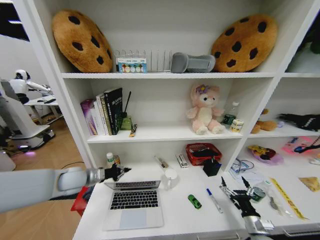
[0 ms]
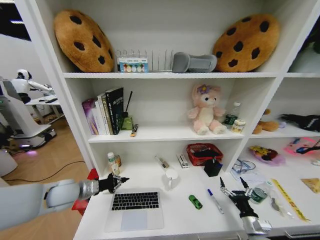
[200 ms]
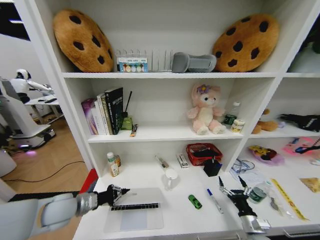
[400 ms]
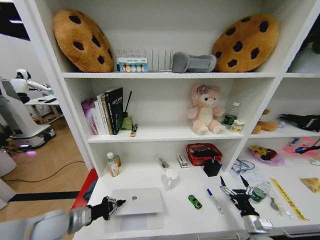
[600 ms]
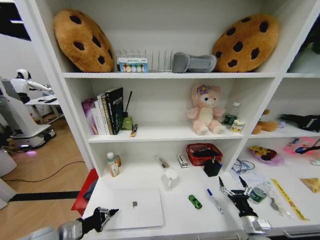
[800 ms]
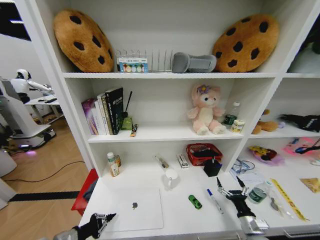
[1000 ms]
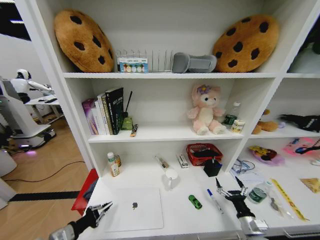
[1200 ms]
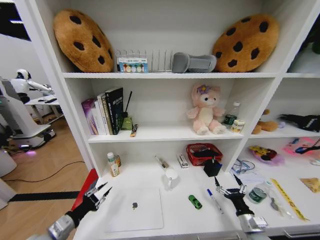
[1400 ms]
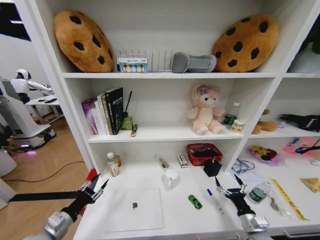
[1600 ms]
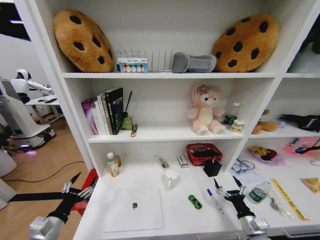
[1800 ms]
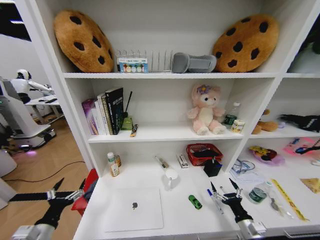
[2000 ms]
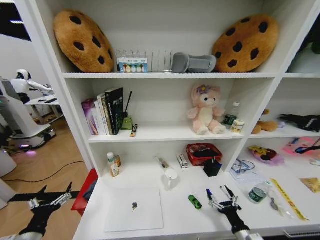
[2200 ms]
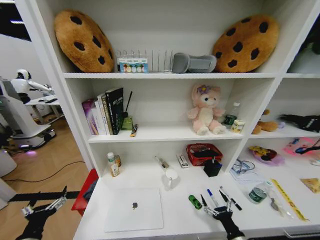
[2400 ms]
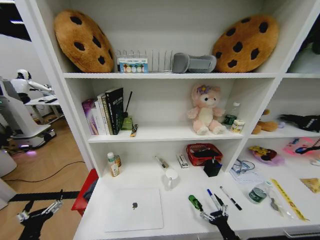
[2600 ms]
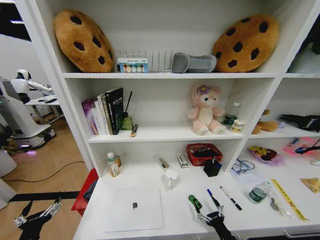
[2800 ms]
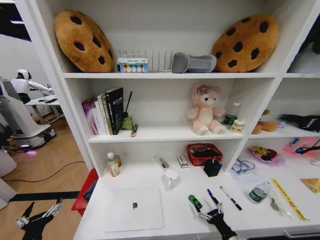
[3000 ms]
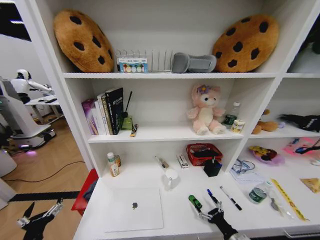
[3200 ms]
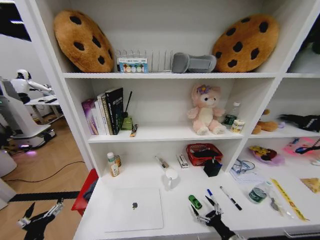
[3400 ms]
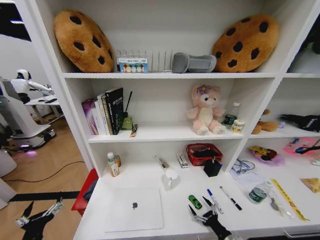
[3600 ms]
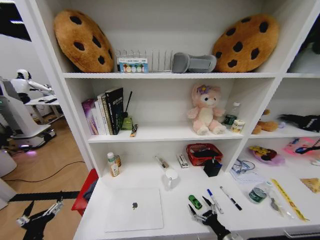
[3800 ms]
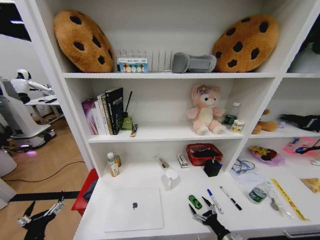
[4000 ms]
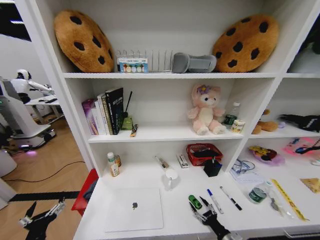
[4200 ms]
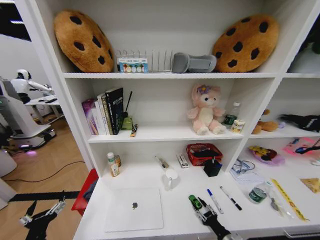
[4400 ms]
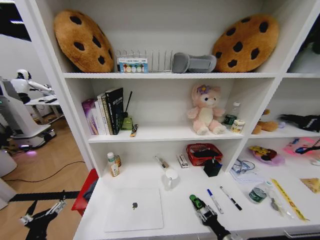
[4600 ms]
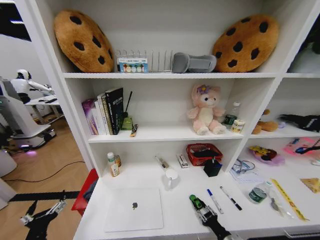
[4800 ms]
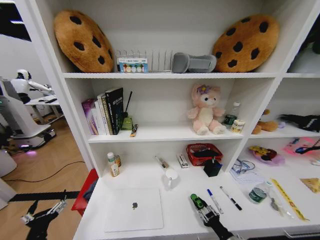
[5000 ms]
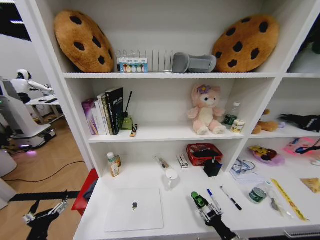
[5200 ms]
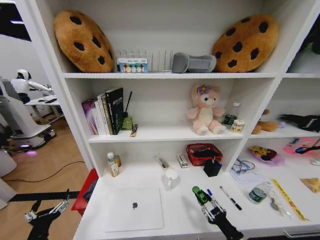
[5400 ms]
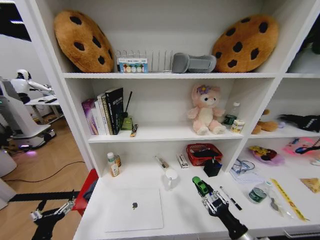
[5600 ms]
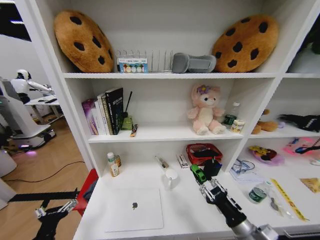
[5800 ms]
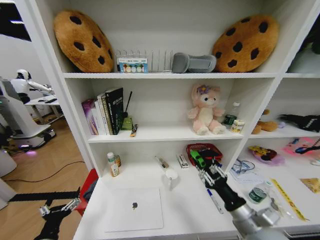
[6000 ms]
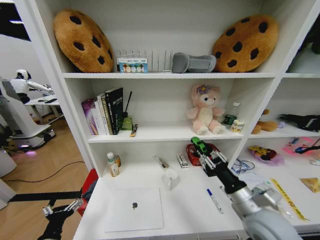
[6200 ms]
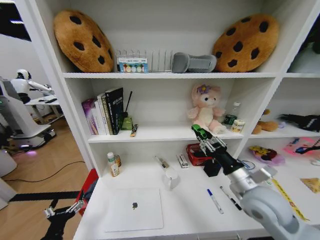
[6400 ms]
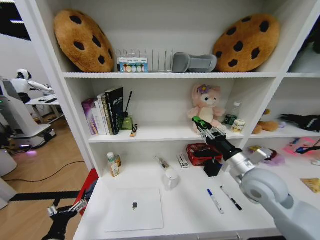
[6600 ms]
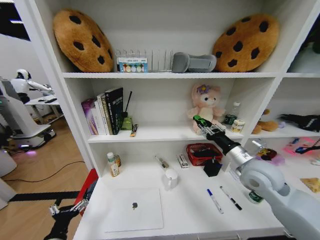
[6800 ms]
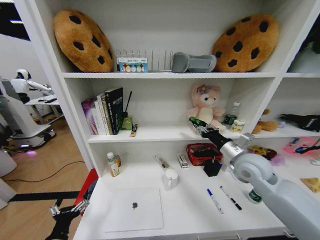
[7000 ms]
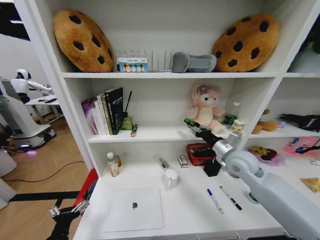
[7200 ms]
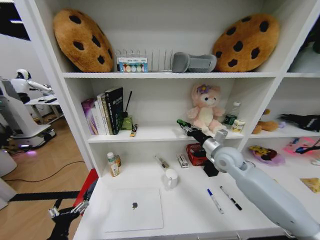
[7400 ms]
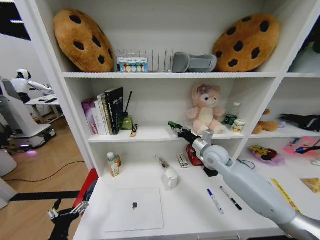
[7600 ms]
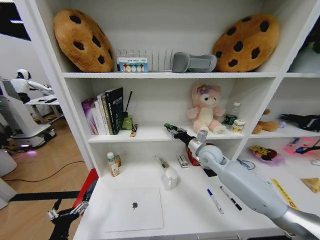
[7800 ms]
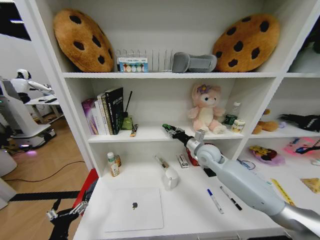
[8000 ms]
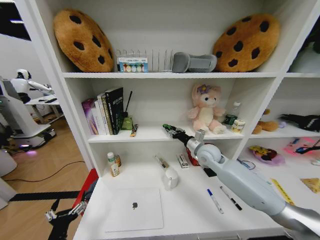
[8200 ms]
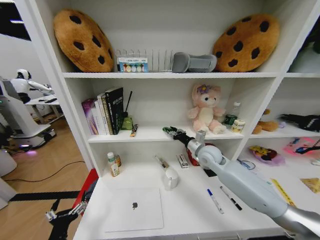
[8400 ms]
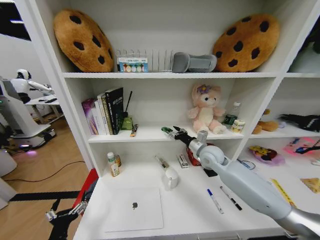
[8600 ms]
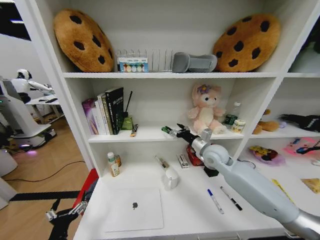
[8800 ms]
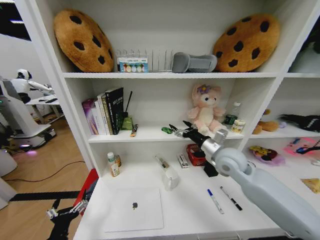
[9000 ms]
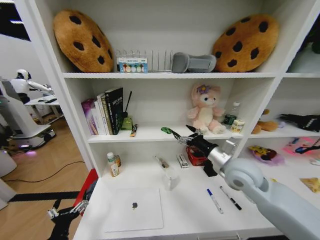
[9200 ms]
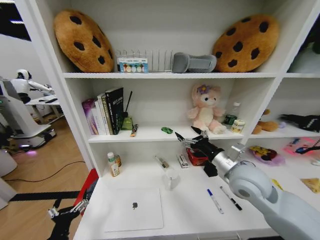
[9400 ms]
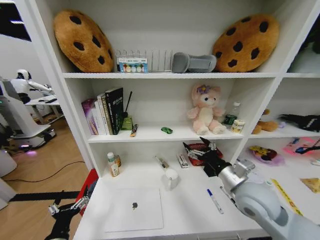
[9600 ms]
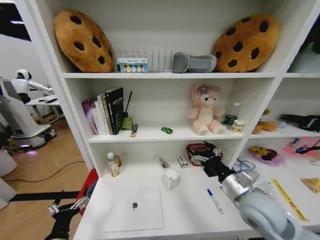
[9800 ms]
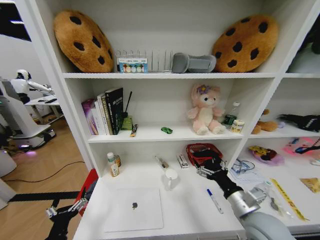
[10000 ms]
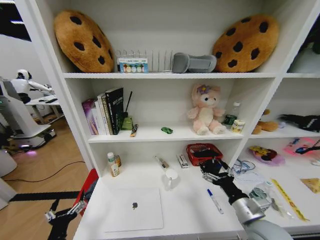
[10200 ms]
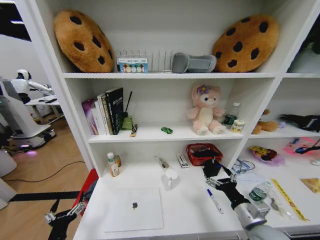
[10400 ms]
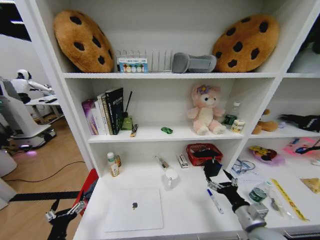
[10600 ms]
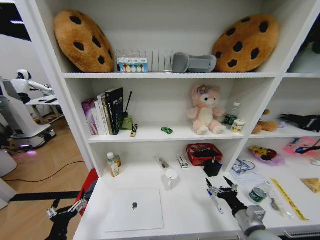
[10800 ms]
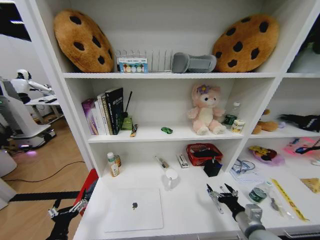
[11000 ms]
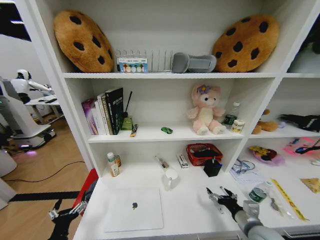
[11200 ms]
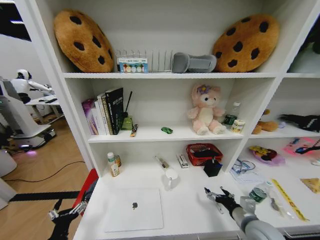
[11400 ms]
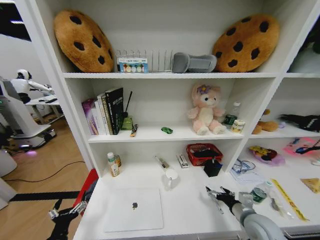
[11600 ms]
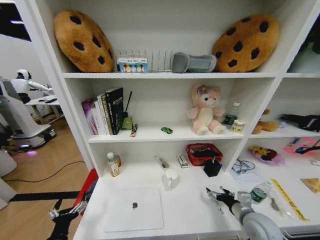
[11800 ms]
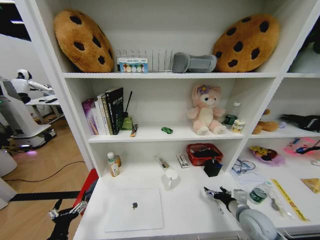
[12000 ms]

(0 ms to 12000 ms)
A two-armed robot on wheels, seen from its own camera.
Task of the whole recording: Organize the objects on the table.
0 ms - 1600 ms: The left gripper heads backward, covering about 20 cm, and opens its fingers.
1600 ms - 3000 ms: The left gripper goes approximately 10 cm backward, and opens. The right gripper heads backward and to the left, covering approximately 10 cm.
3000 ms - 4400 ms: The right gripper closes its fingers.
4400 ms - 6000 ms: The right gripper moves upward, some 25 cm.
6000 ms - 7600 ms: The right gripper goes some 25 cm forward.
7600 ms - 9000 ms: The right gripper opens up.
9000 ms - 10400 ms: The right gripper moves backward and downward, roughly 25 cm.
10400 ms - 12000 ms: The right gripper heads downward and forward, covering approximately 10 cm.

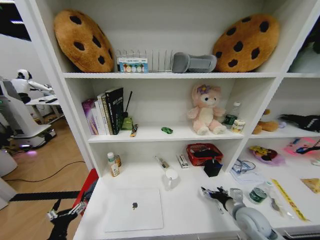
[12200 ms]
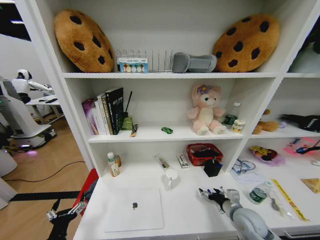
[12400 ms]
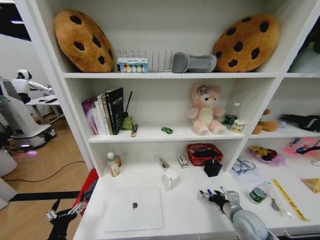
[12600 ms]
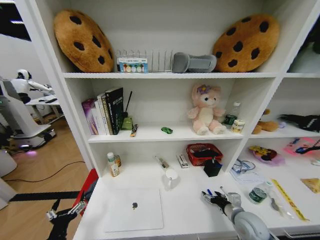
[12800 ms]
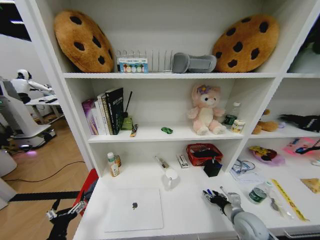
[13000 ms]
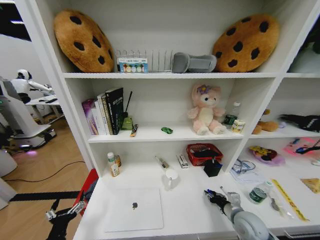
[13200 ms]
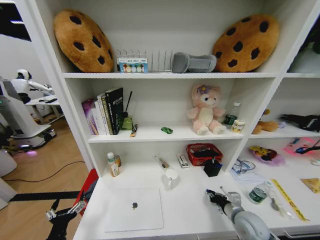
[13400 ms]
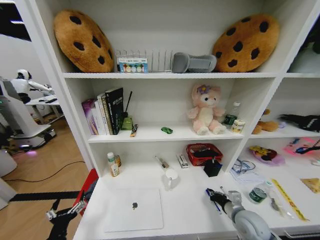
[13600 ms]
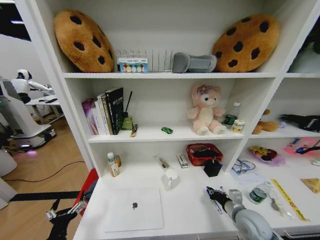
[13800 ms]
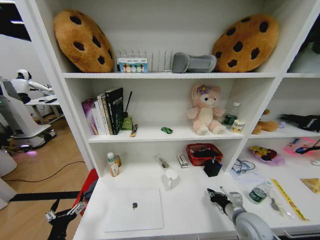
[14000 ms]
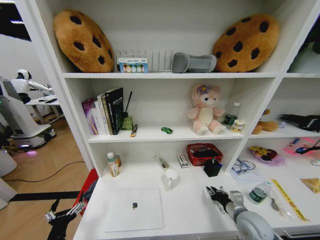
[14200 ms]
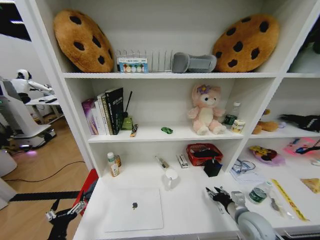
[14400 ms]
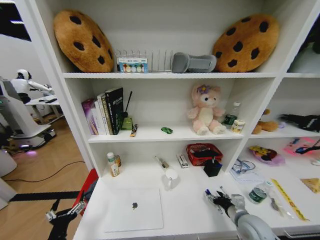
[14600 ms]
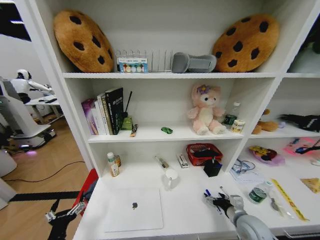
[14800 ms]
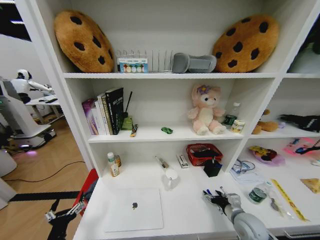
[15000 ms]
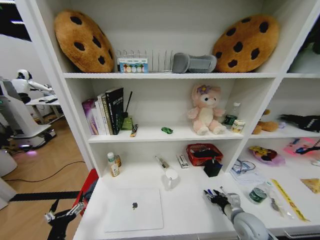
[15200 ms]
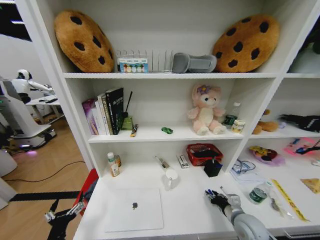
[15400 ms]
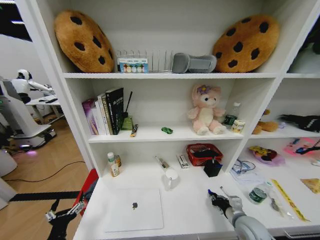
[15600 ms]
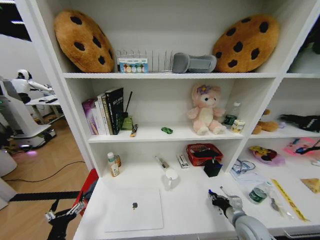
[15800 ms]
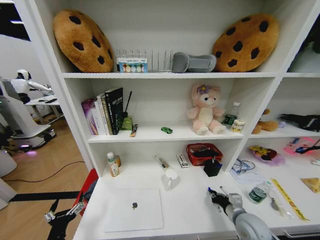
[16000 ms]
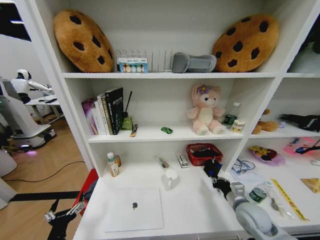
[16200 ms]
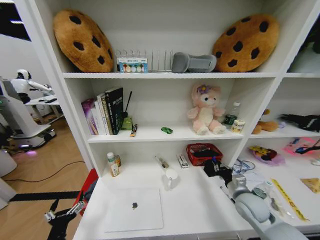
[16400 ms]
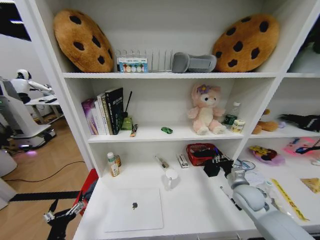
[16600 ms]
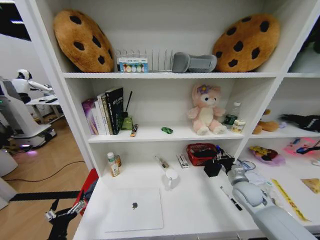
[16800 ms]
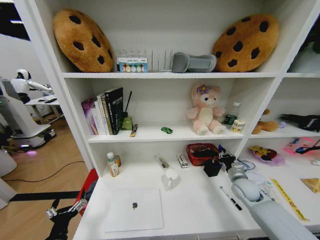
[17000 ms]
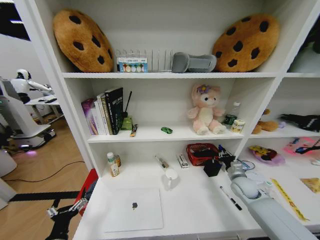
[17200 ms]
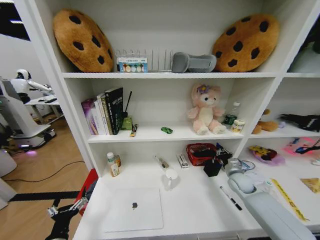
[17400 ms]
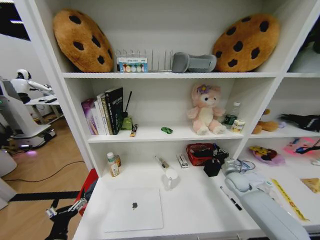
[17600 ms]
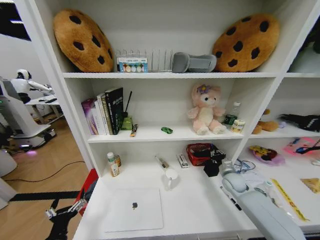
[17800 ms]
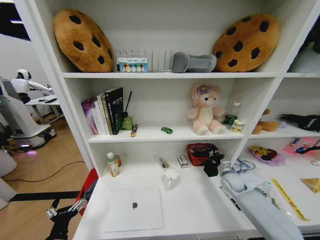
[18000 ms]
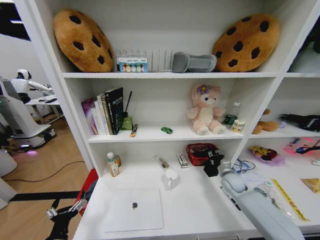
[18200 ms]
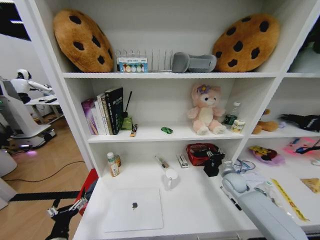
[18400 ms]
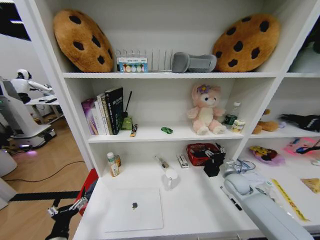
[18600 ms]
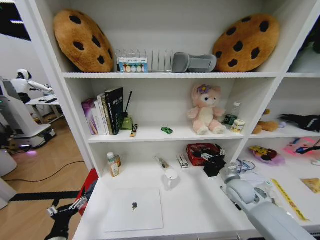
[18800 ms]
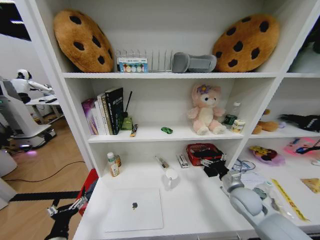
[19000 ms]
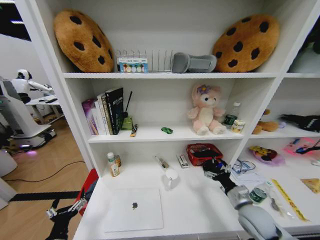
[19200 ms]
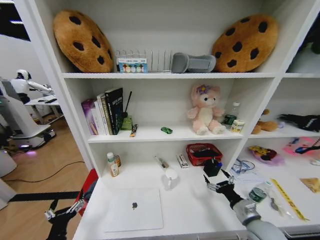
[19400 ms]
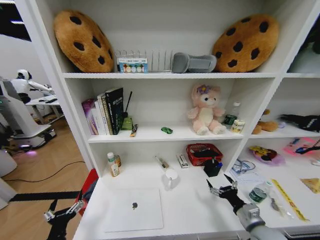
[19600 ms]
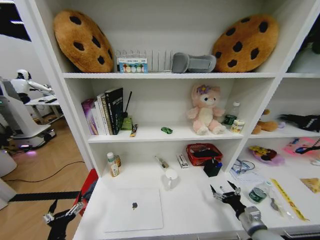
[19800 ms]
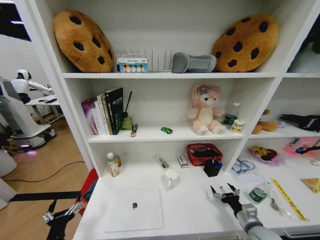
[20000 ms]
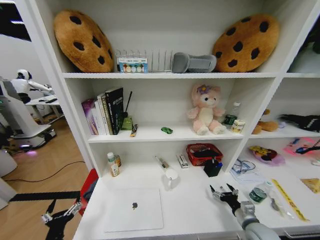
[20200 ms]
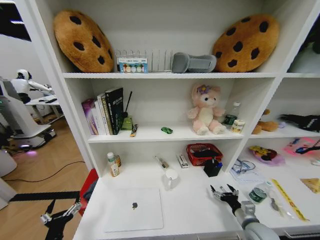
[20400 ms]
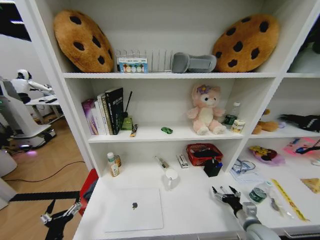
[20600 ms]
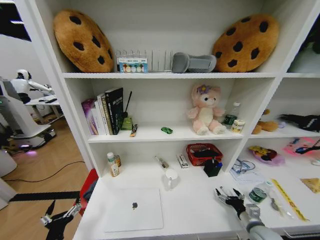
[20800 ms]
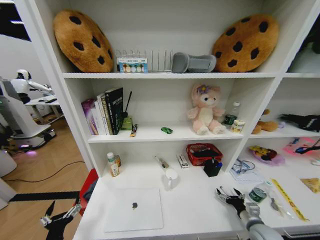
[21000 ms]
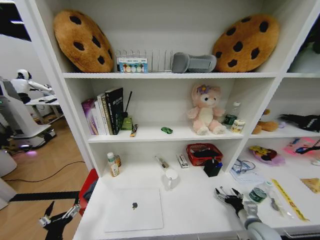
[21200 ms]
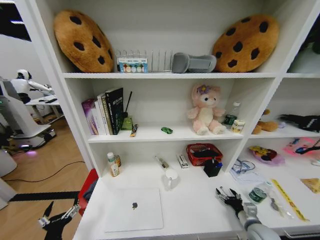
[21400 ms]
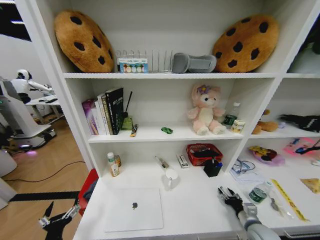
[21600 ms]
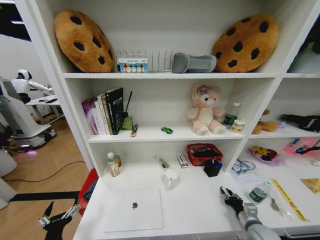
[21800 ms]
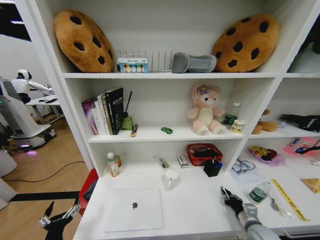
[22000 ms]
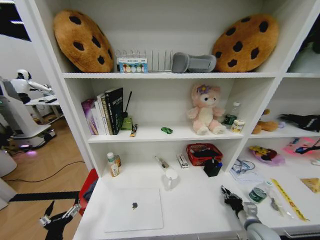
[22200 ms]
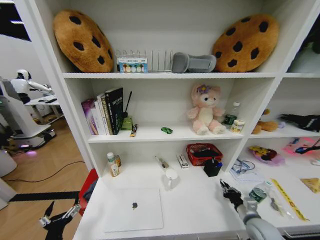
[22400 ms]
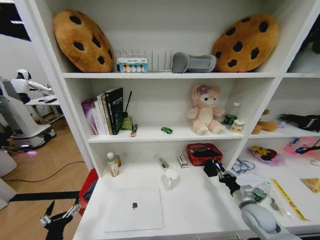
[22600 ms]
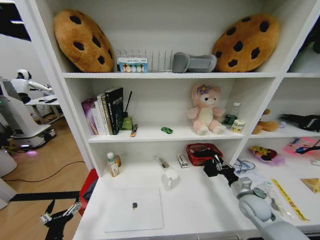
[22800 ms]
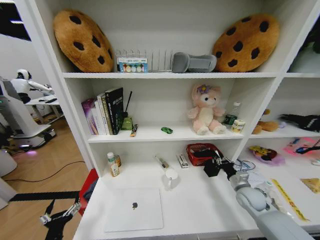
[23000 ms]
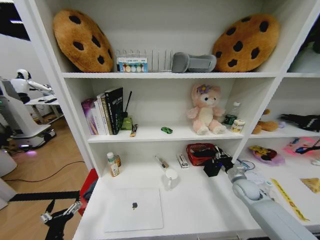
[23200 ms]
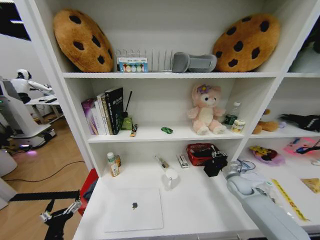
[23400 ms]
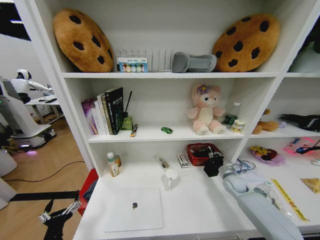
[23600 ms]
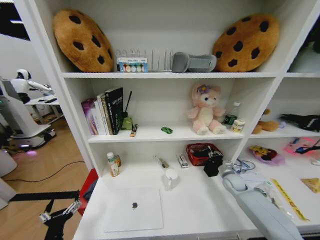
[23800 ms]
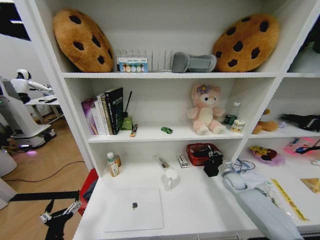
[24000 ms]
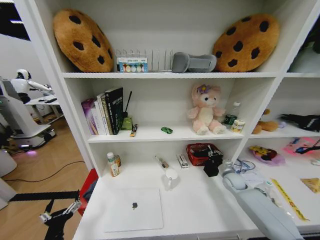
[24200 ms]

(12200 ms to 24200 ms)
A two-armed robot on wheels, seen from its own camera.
Task of the whole recording: Organize the objects on the table.
12200 ms - 13800 ms: The right gripper closes its fingers.
13800 ms - 15200 ms: The right gripper opens its fingers.
15200 ms - 16600 ms: The right gripper moves forward and upward, some 10 cm, and closes.
16600 ms - 18200 ms: The right gripper is displaced forward and downward by some 10 cm.
18200 ms - 19800 ms: The right gripper moves backward, approximately 20 cm, and opens up.
19800 ms - 21200 ms: The right gripper shifts by roughly 5 cm.
21200 ms - 22600 ms: The right gripper shifts about 5 cm upward, and closes.
22600 ms - 24200 ms: The right gripper travels forward by some 15 cm.
